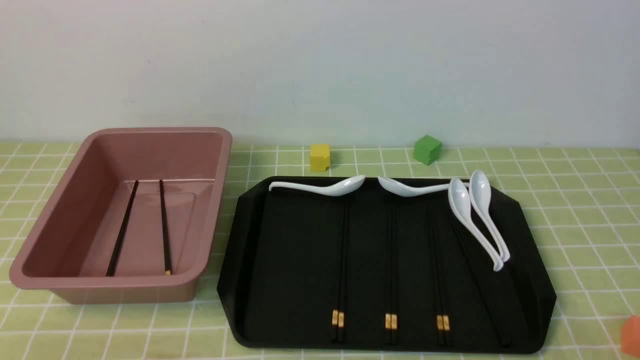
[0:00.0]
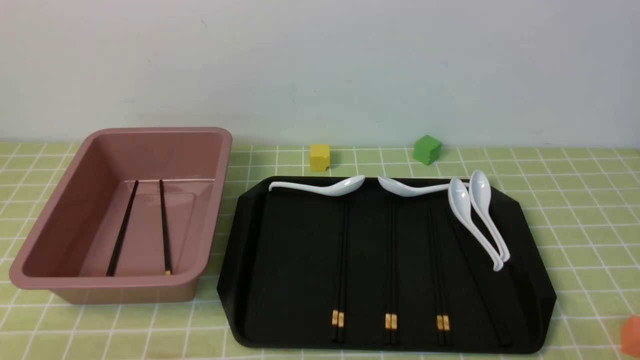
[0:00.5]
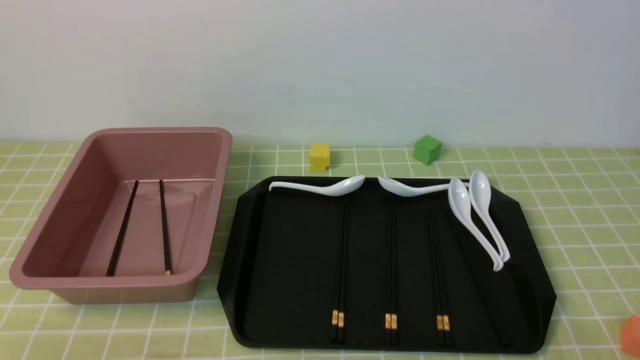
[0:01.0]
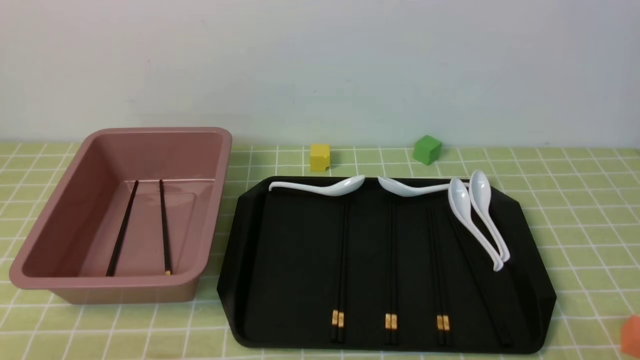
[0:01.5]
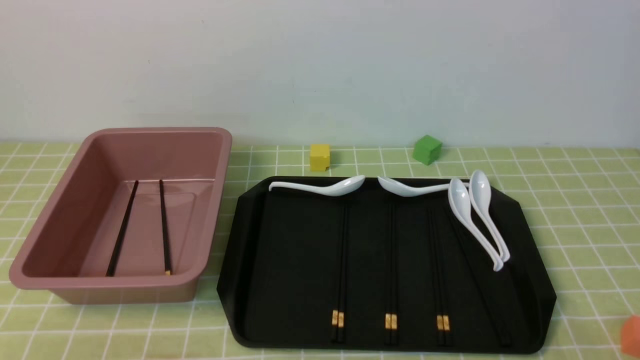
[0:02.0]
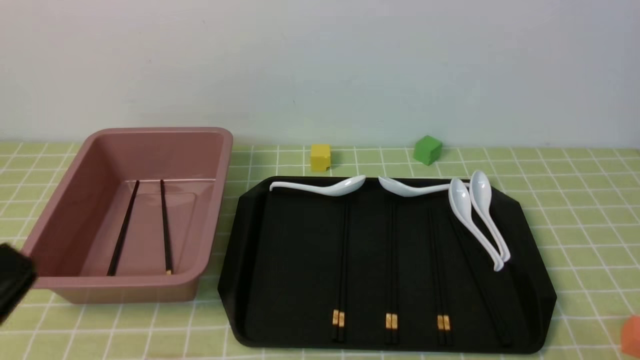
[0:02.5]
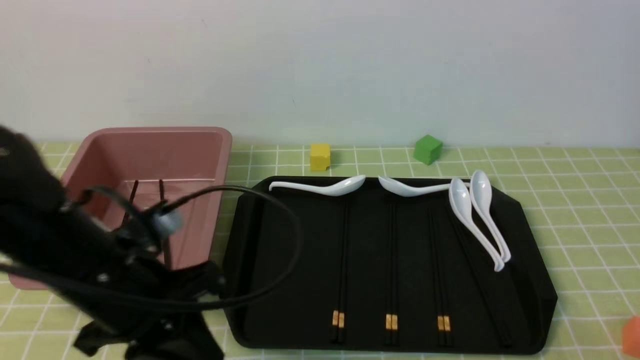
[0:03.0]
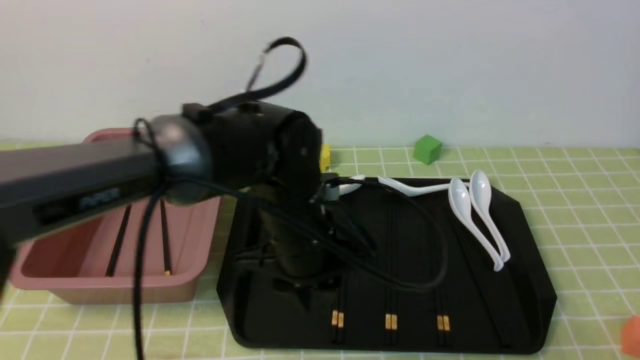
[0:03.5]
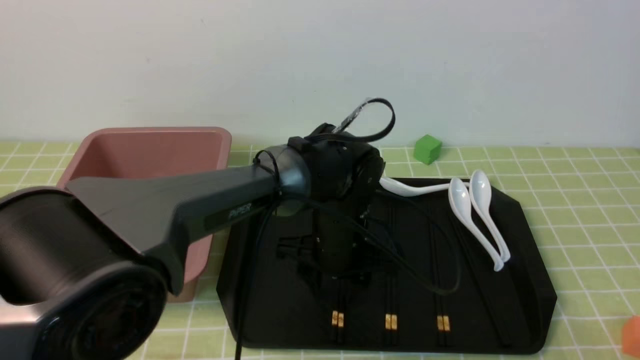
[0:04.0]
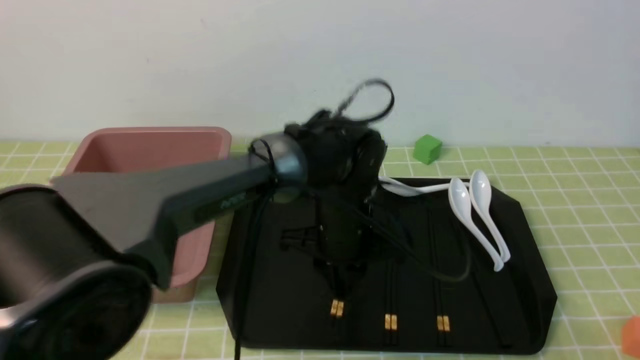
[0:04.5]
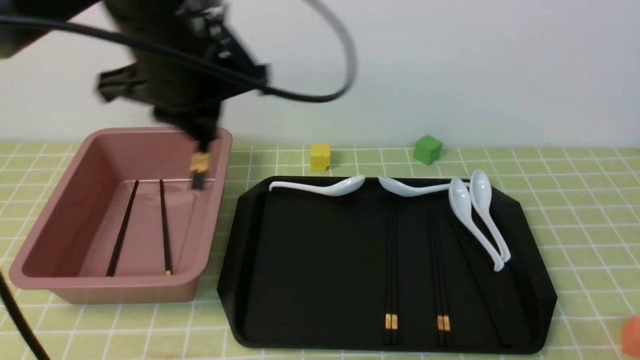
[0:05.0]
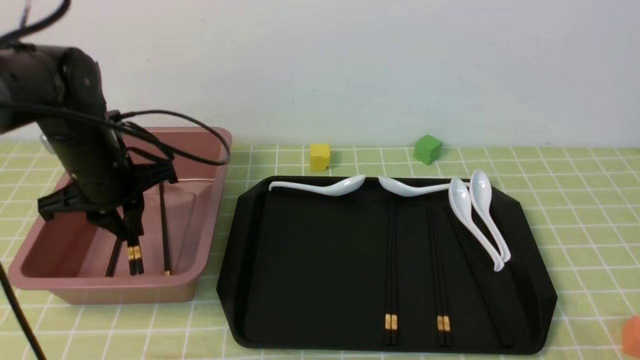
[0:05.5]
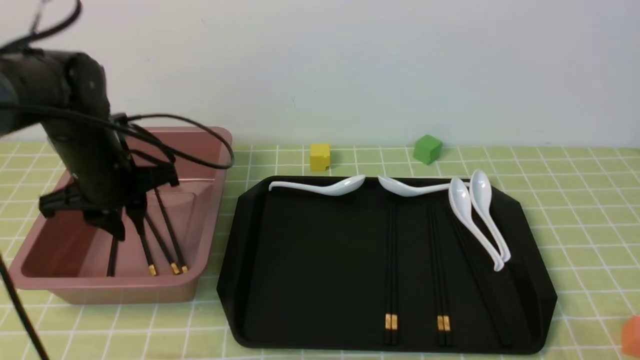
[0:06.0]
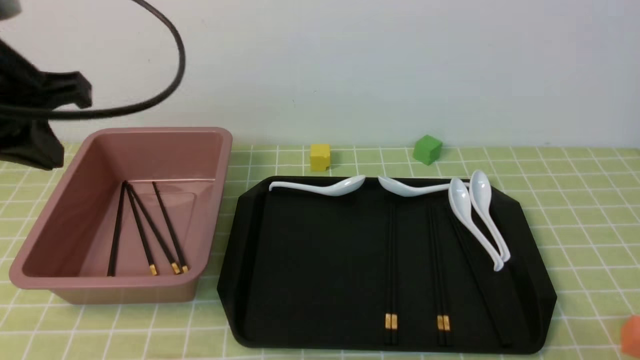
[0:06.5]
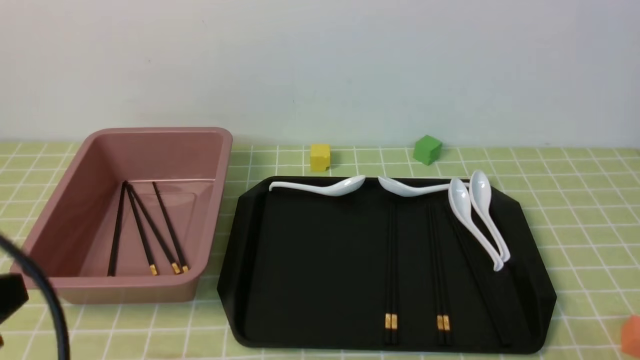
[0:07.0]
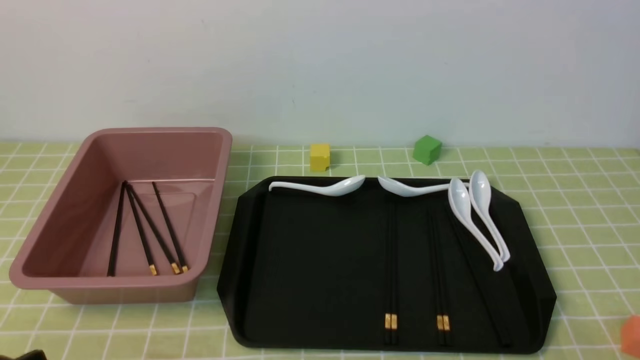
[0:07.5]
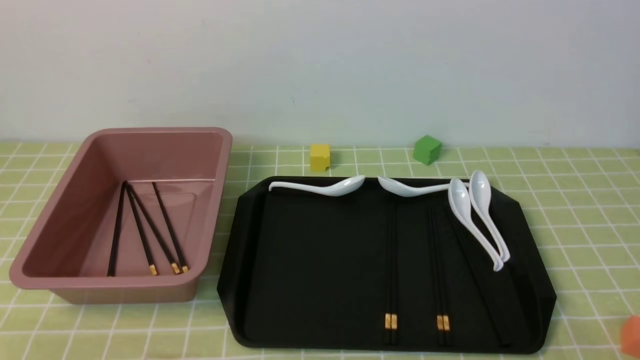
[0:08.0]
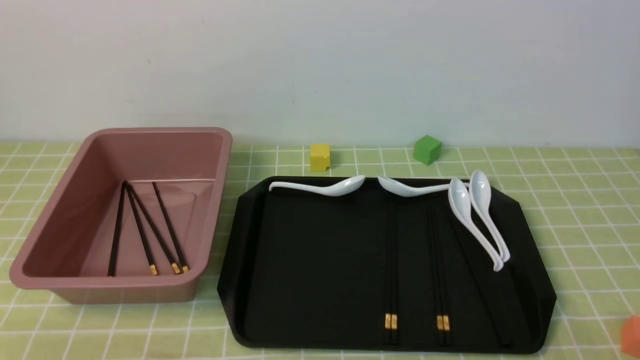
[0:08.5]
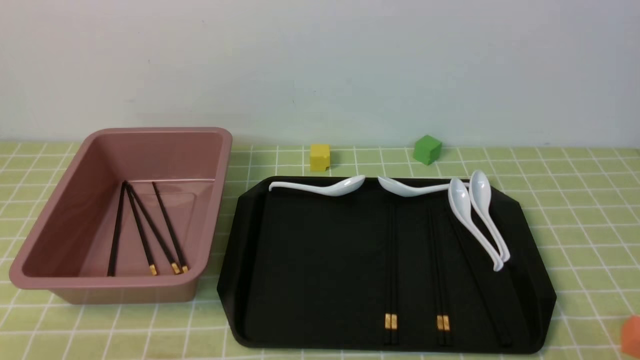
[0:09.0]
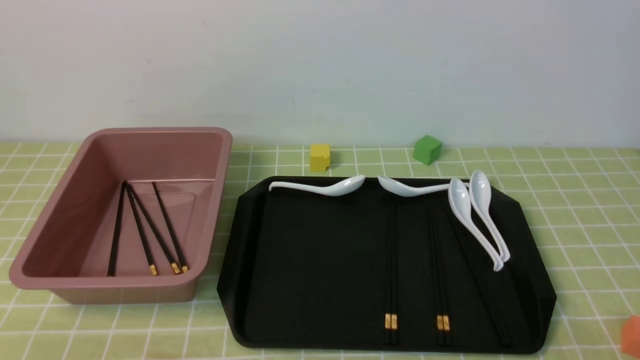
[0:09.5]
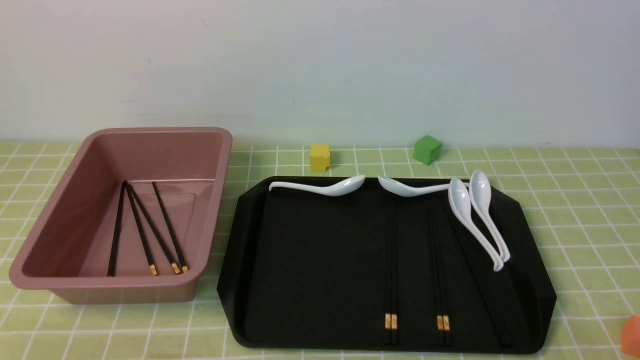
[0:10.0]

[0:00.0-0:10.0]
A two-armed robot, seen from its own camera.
Step, 0:00.0 to 0:04.5: use the left arm to grab a pair of chopsticks.
Step, 0:05.0 to 0:06.0: use the left arm to put the chopsticks into the lunch box.
0:02.0 to 0:04.0: The left gripper is displaced forward and to the right by some 40 cm, and opens.
0:04.0 to 0:06.0: The left gripper goes roughly 25 cm to the left, and closes its fingers.
0:06.0 to 0:08.0: The left gripper is displaced backward by roughly 35 cm, and closes.

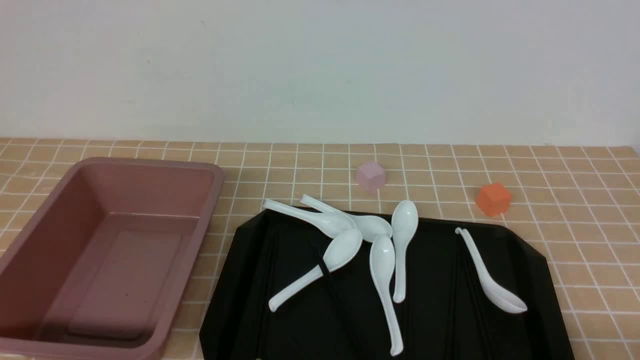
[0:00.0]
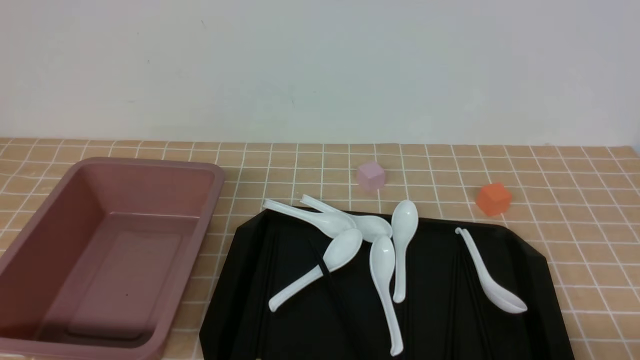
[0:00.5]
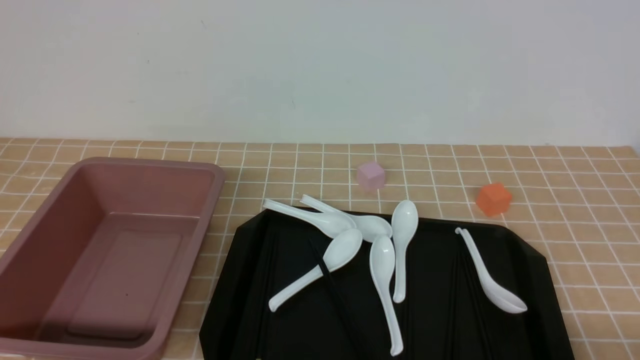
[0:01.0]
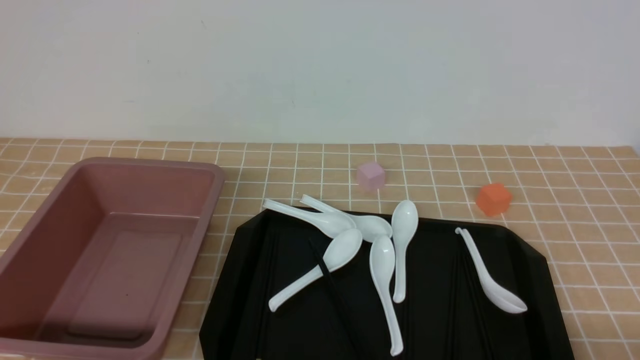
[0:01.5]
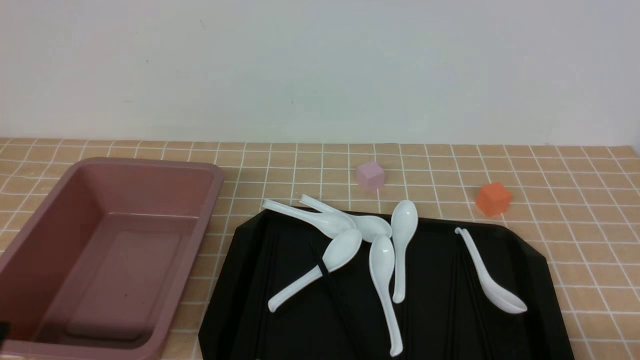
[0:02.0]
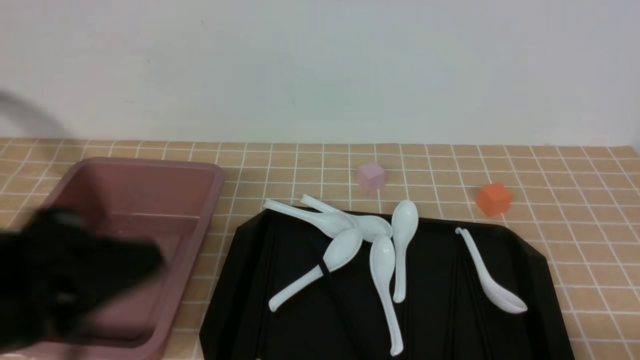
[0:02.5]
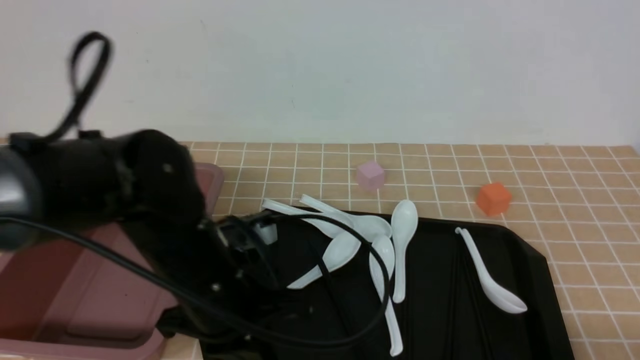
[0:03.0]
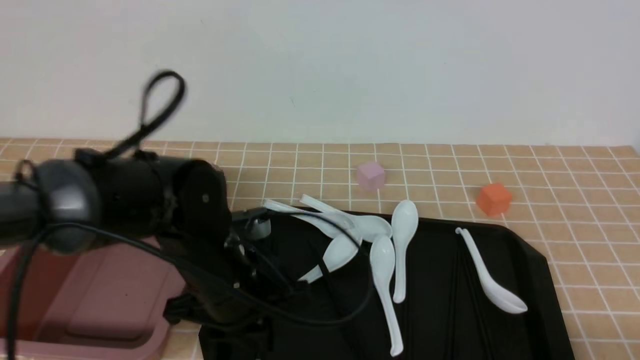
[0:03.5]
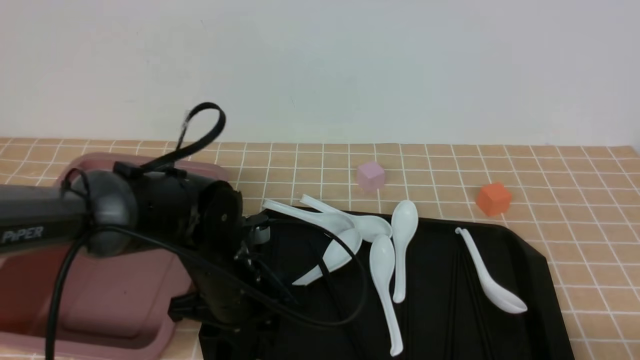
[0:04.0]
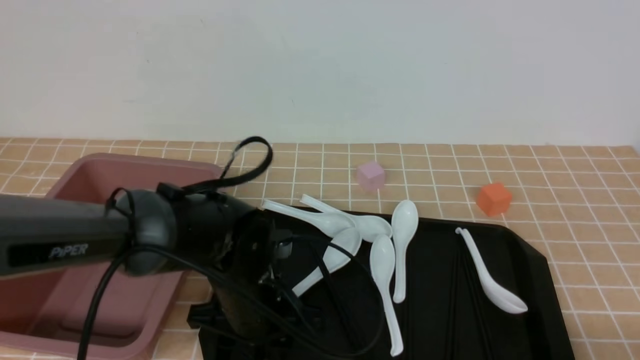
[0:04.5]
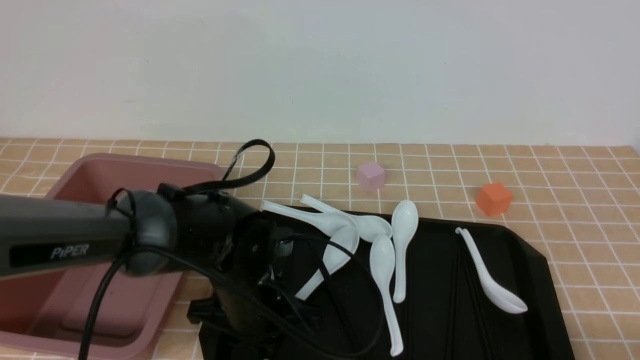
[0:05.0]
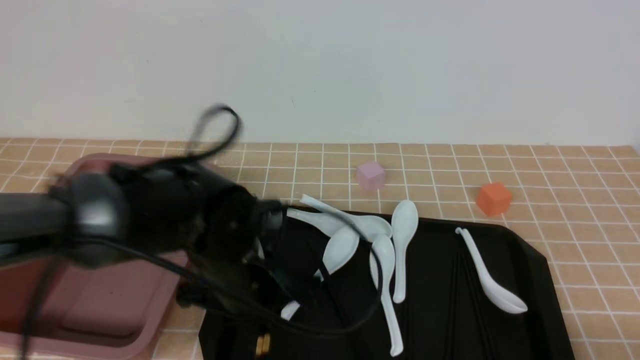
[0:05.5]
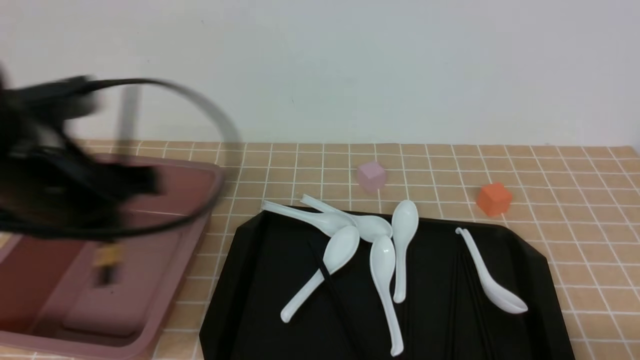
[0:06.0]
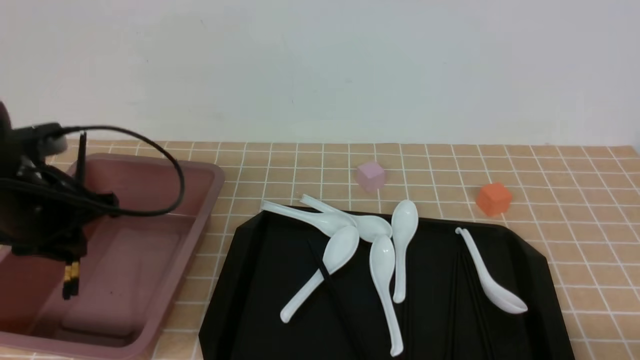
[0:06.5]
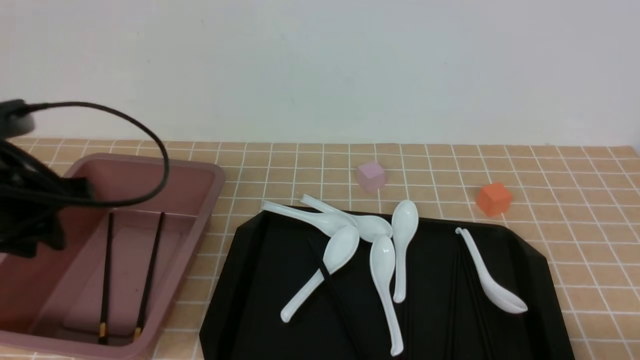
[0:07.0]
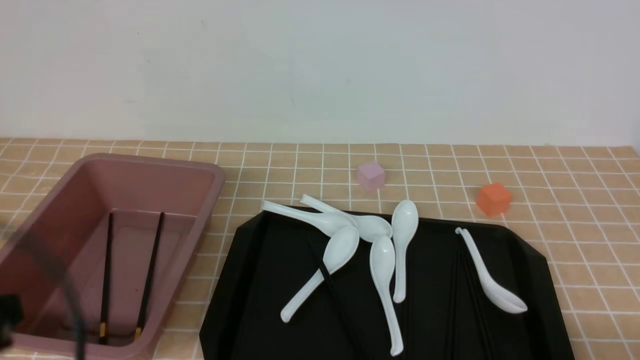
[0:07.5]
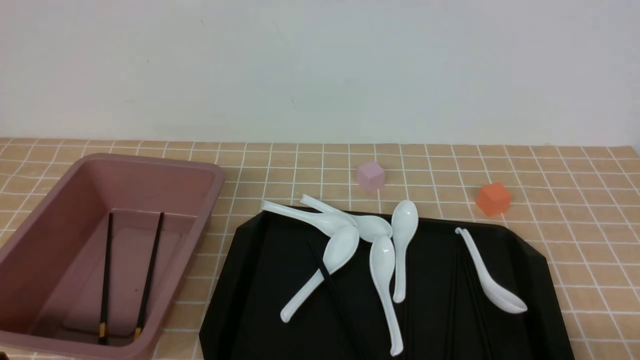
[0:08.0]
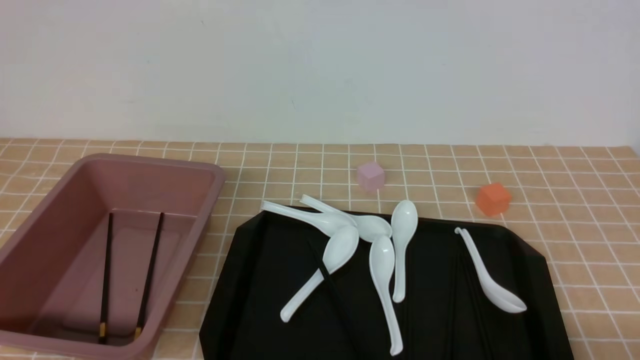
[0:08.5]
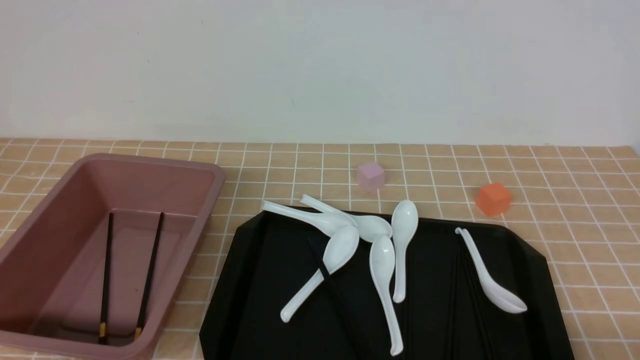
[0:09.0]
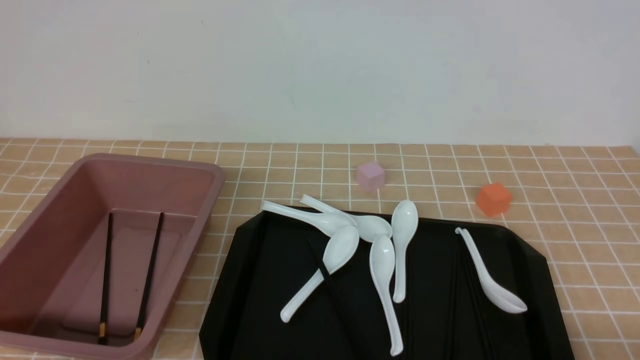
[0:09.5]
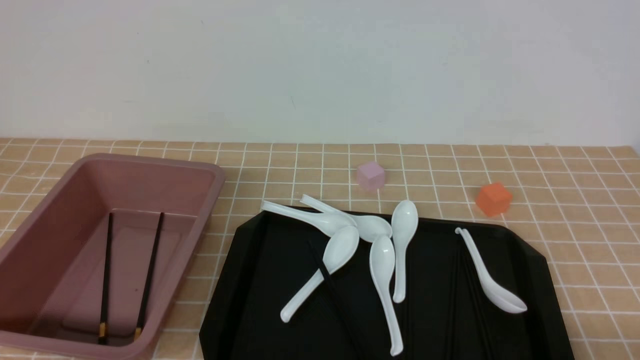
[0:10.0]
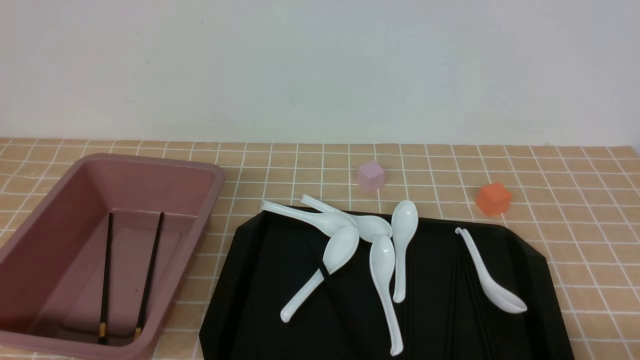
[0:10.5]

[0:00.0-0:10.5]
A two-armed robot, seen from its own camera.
Step, 0:00.0 to 0:05.5: use the left arm to grab a pair of chopsticks.
Step, 0:06.0 to 0:07.0: use the left arm to put the chopsticks into the lunch box.
0:02.0 to 0:04.0: The left gripper shifts approximately 30 cm forward and to the right, and closes, then reopens.
0:04.0 to 0:06.5: The left gripper travels to the left and upward by approximately 20 cm, and closes its fingers.
0:06.5 to 0:08.5: The left gripper goes about 25 cm backward, and closes up.
0:08.5 to 0:10.5: Neither gripper changes place.
